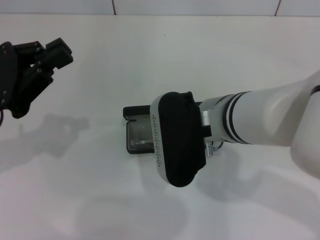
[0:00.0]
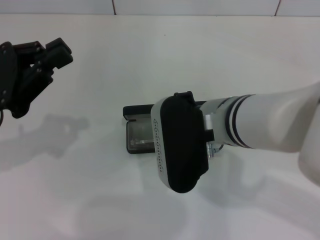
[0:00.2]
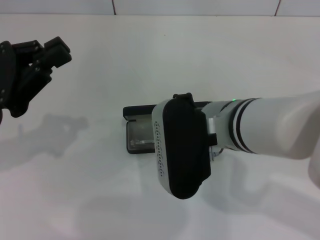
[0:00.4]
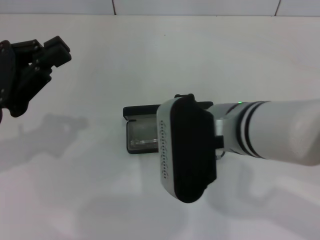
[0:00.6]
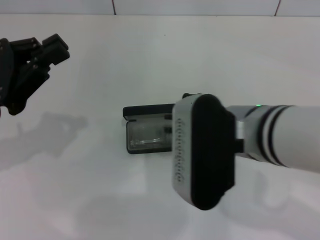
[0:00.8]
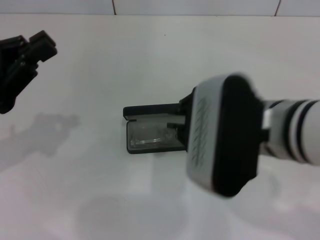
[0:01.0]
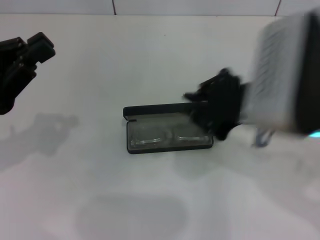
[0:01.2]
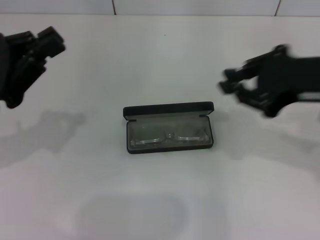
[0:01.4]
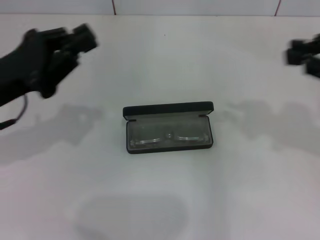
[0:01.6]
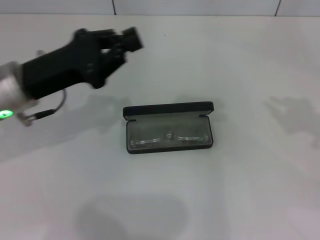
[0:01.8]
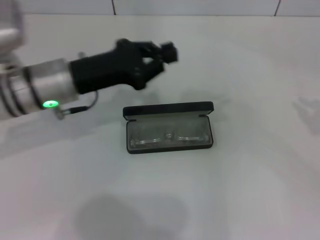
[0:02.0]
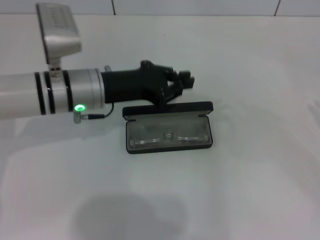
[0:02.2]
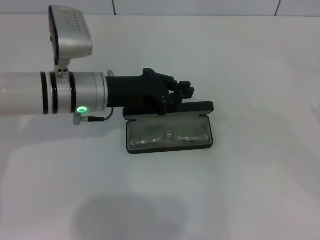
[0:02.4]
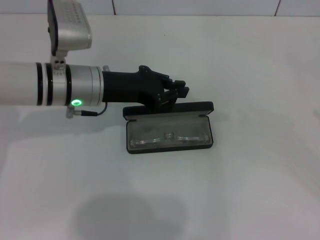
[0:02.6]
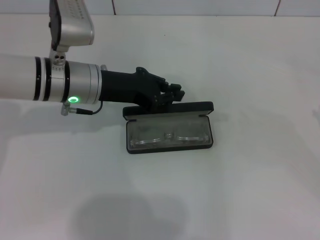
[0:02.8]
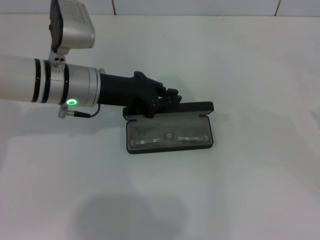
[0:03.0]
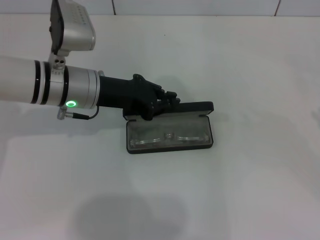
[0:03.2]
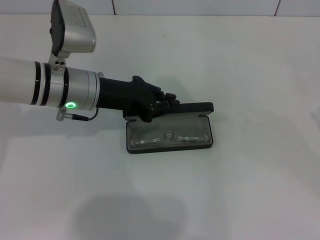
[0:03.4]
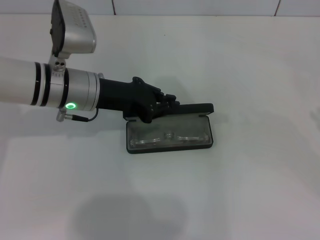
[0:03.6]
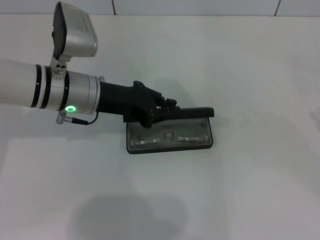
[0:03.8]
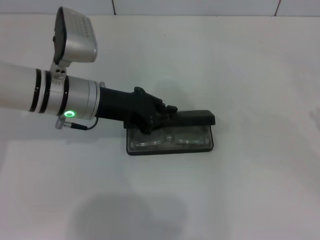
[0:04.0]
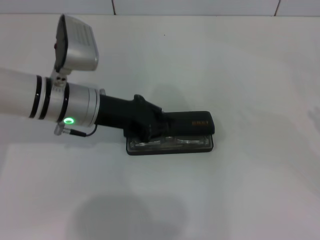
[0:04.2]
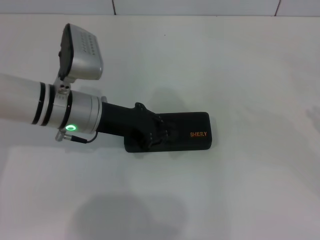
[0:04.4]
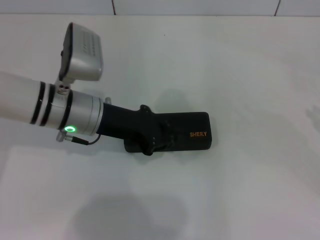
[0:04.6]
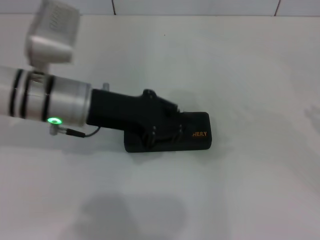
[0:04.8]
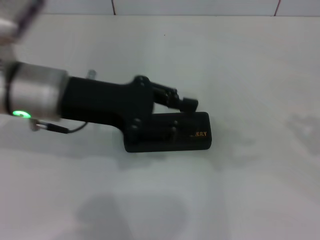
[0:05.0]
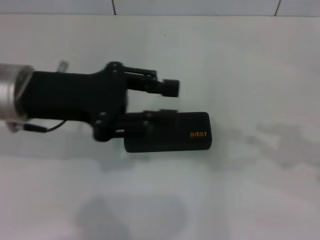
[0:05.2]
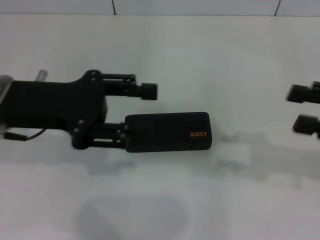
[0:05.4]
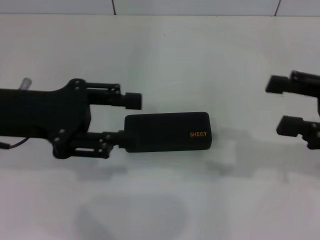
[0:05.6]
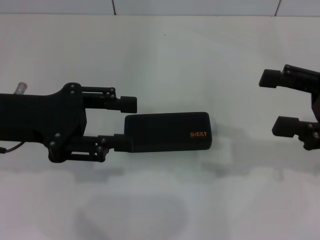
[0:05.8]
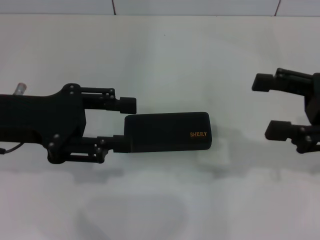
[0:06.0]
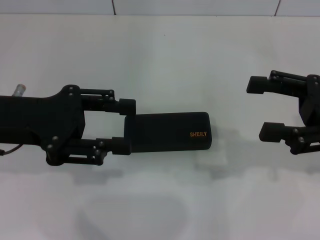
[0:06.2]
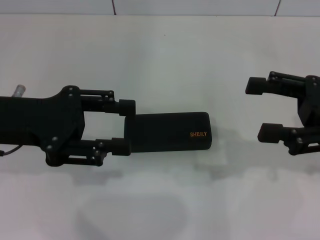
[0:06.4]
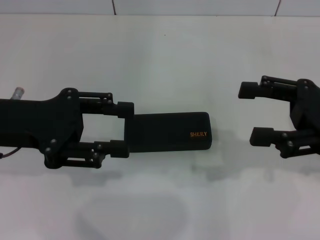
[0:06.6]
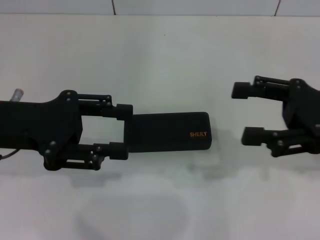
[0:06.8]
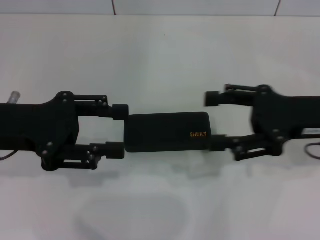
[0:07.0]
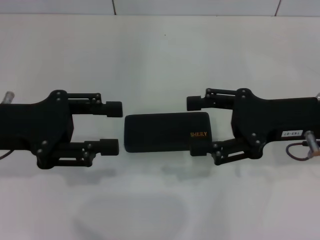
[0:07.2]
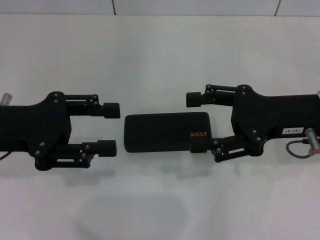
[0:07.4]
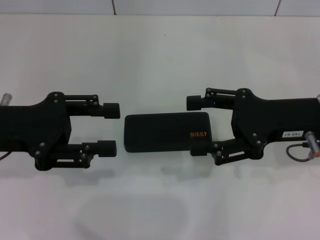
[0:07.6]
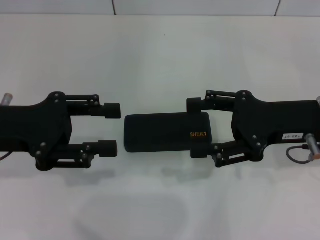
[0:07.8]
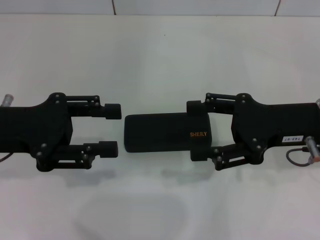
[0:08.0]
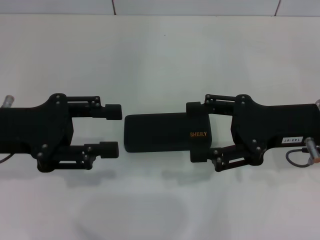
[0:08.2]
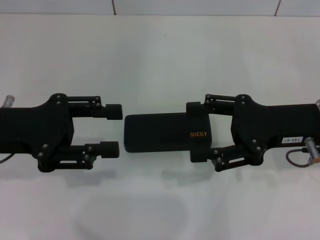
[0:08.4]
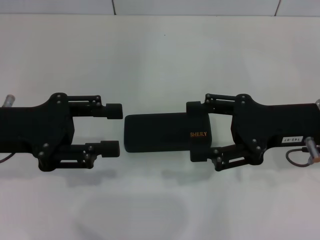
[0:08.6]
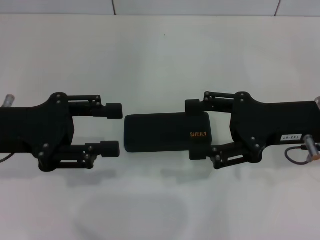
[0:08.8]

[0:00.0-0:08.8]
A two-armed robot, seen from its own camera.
Step, 0.6 to 4.6 s: Close the glasses case with your left hand.
0.0 to 1.4 s: The right gripper moves to the right and upward, approximately 20 cm.
1.4 to 3.0 s: The right gripper heads to the right, covering some 20 cm. The left gripper moves to the right and forward, about 15 cm.
3.0 to 4.4 s: There are only small adjustments of the grippers.
4.4 to 5.8 s: The right gripper shifts approximately 15 cm to the left, and opens its fingers. The left gripper heads to the left, upward and backward, covering approximately 15 cm, and opens its fingers.
5.8 to 7.4 s: The right gripper travels to the left by some 10 cm.
7.4 to 8.8 s: Both grippers stay about where they are.

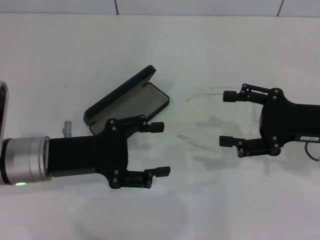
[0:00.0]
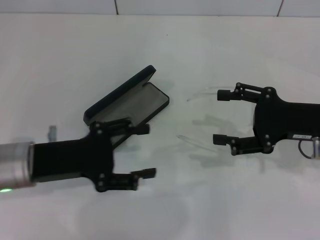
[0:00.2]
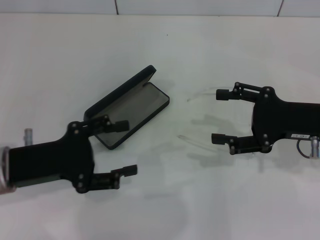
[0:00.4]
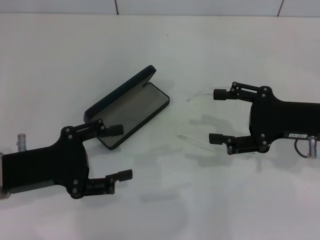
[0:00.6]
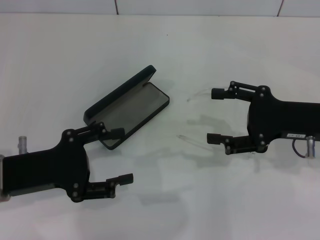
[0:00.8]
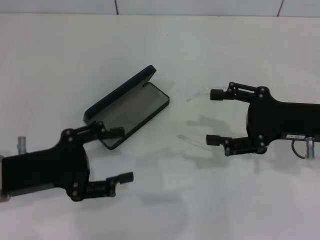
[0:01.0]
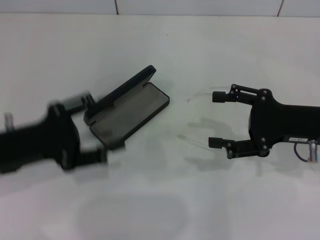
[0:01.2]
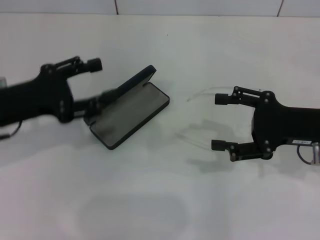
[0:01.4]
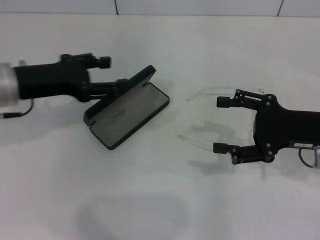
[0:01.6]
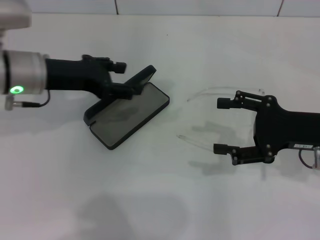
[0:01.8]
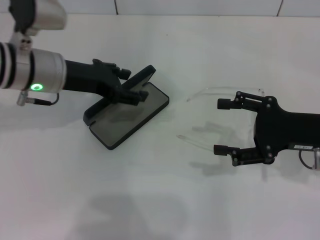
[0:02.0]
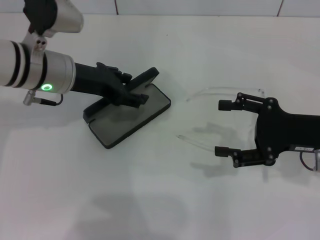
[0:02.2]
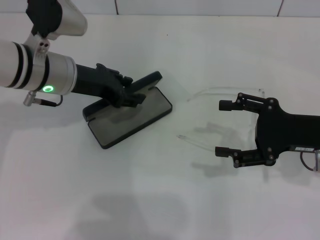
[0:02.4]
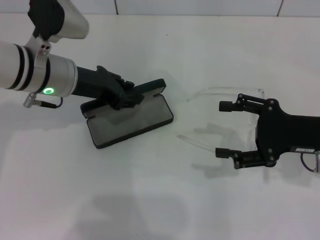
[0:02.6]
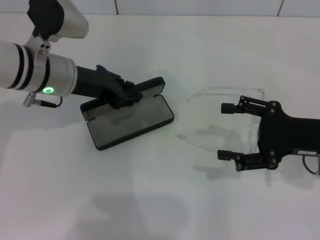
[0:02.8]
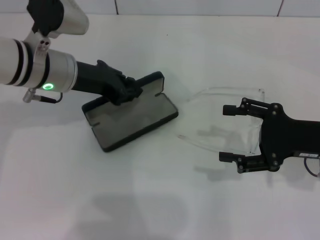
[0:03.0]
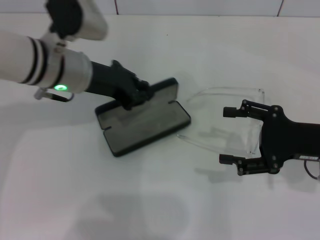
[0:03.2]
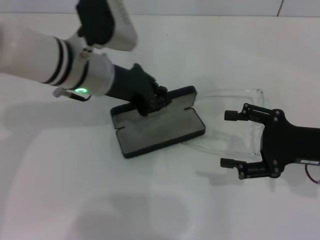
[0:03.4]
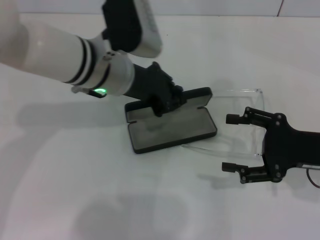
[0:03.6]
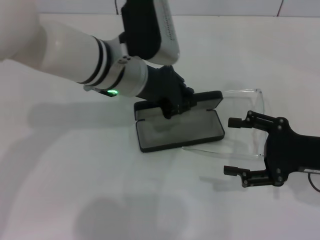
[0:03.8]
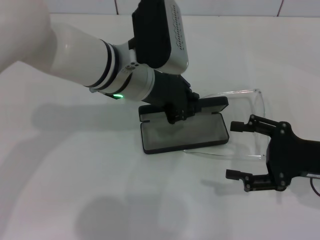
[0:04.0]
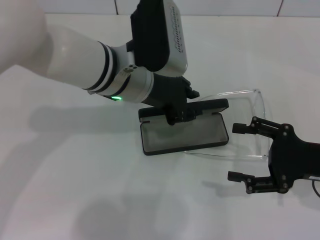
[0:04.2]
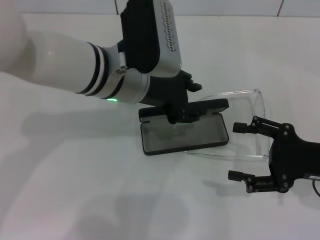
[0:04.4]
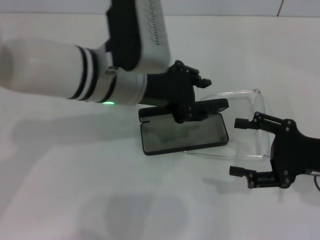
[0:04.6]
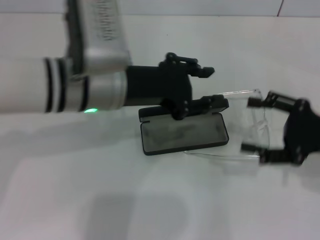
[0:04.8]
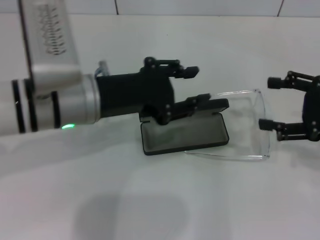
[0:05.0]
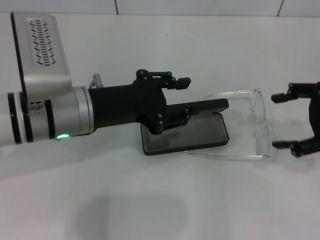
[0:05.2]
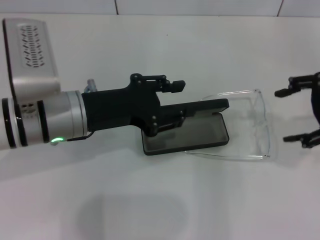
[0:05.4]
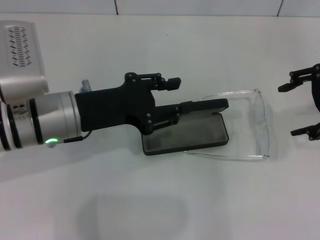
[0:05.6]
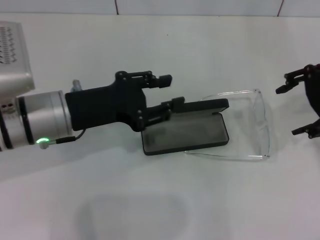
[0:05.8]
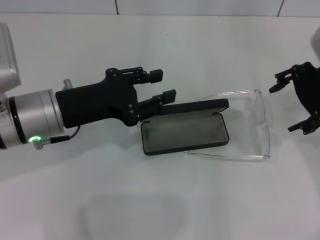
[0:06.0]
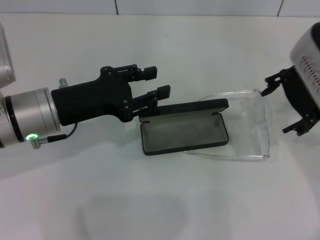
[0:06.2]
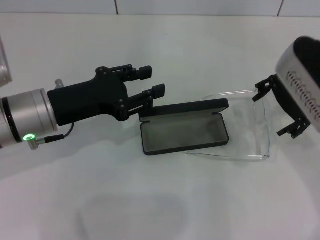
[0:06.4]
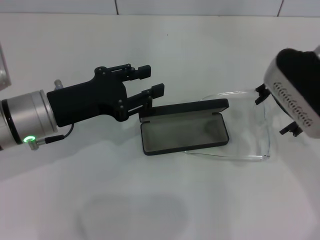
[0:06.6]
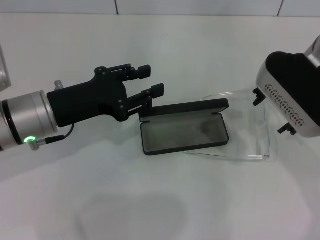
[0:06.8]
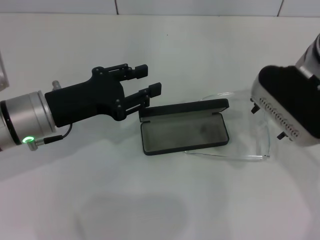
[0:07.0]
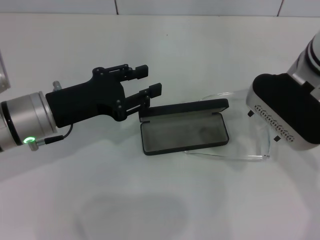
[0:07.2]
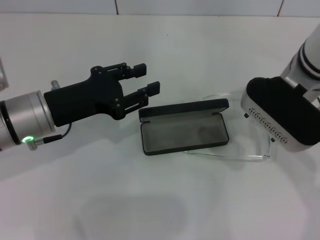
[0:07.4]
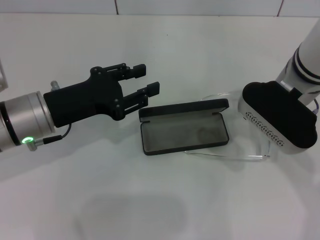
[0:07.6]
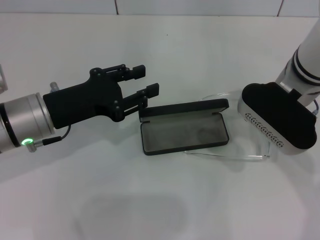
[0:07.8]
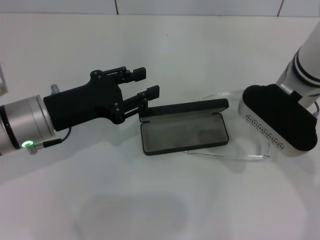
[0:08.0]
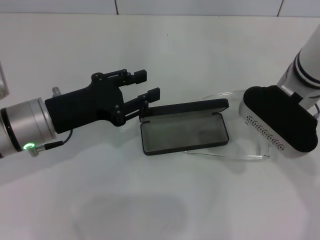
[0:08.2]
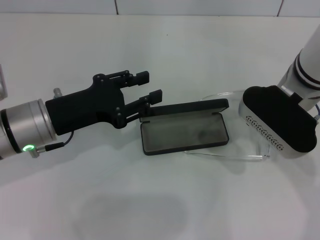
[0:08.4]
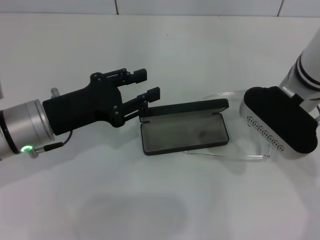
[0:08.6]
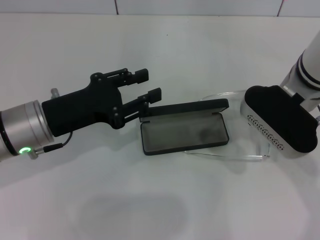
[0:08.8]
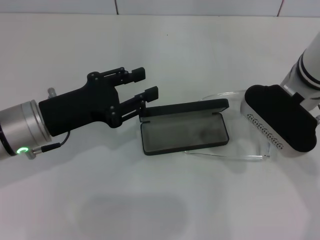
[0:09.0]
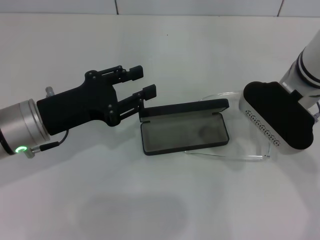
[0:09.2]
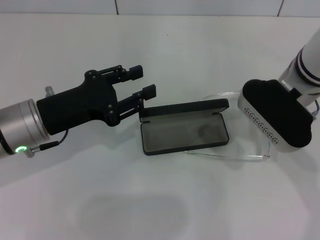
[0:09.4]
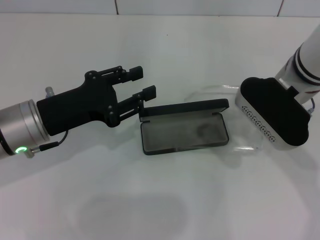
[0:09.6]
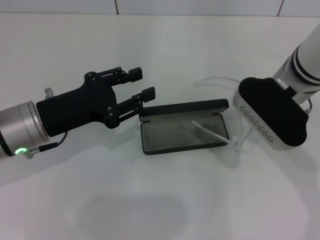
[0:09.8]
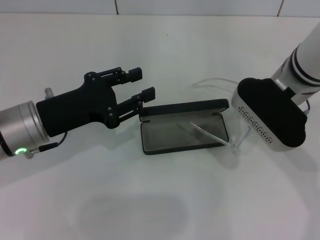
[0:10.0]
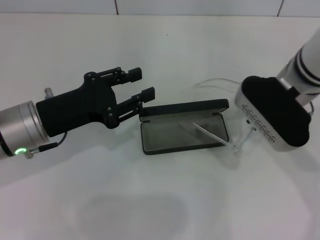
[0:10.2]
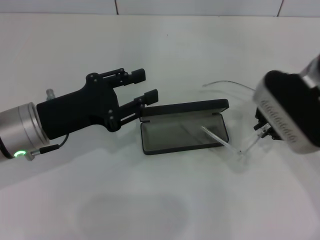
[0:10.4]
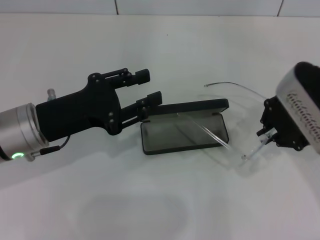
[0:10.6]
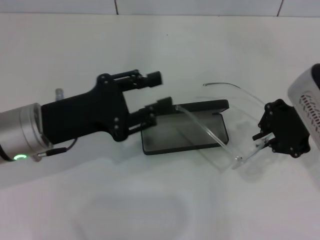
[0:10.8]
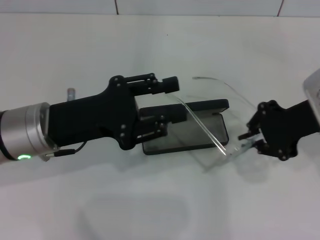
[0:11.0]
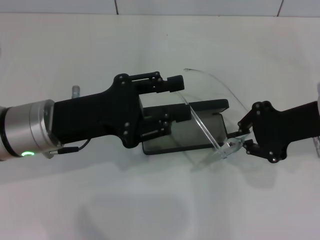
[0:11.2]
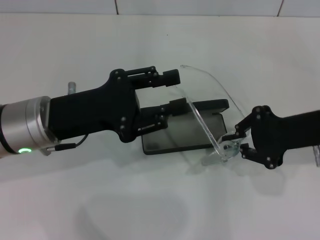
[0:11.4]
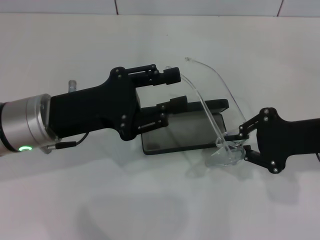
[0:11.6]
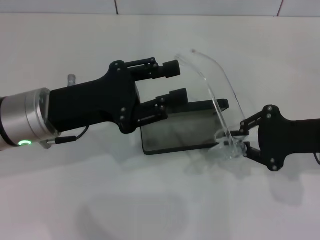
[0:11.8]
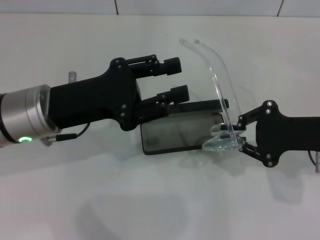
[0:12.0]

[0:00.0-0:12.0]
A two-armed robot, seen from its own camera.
Step, 0.0 to 2.8 s: Grab the glasses case with your left hand.
Step, 3.0 to 4.4 s: Place the glasses case in the center of the table with your left hand.
Step, 4.6 to 10.0 s: Grab the eyeglass frame with your right hand.
0.0 to 1.6 s: The left gripper heads forward and upward, covering roughly 10 cm.
1.6 to 3.0 s: The left gripper travels to the right by approximately 5 cm, and closes up.
3.0 to 4.4 s: The left gripper moves to the right, approximately 10 cm.
4.4 to 6.0 s: The right gripper travels upward and forward by approximately 15 cm. Meanwhile the left gripper travels to the left and backward by some 10 cm.
6.0 to 7.6 s: The right gripper travels to the left and downward by approximately 10 cm.
7.6 to 9.0 s: Both grippers stay about where they are.
9.0 to 10.4 s: The right gripper closes up.
10.4 to 12.0 s: The right gripper goes roughly 10 cm to the right and backward.

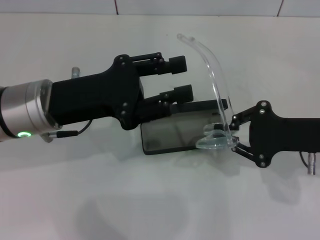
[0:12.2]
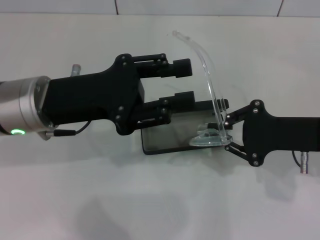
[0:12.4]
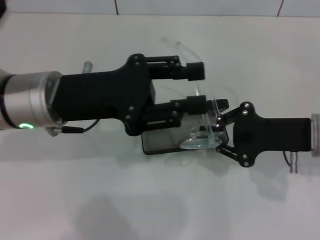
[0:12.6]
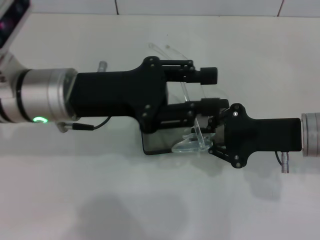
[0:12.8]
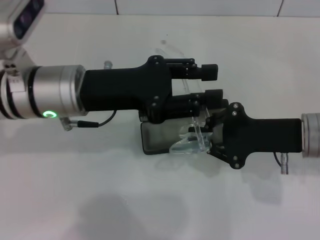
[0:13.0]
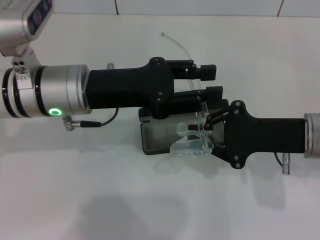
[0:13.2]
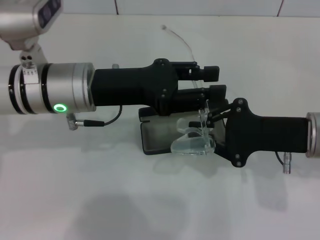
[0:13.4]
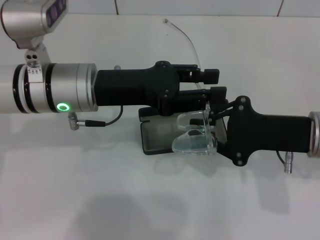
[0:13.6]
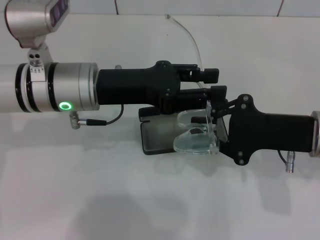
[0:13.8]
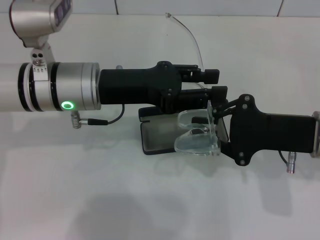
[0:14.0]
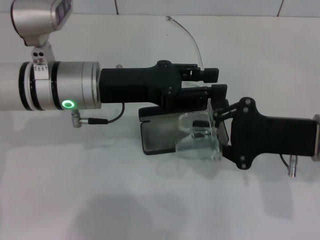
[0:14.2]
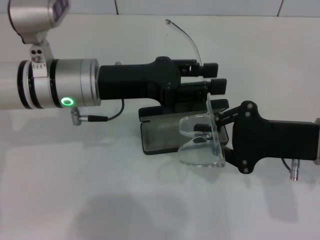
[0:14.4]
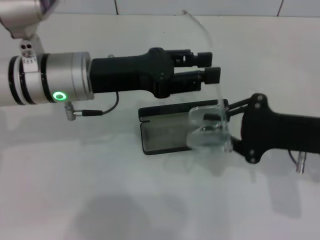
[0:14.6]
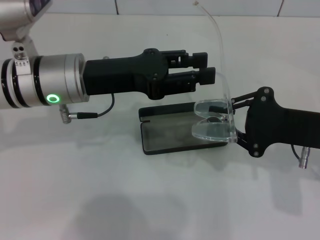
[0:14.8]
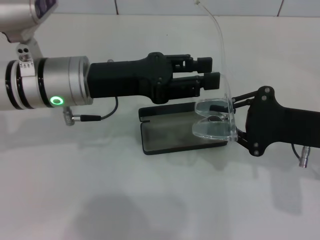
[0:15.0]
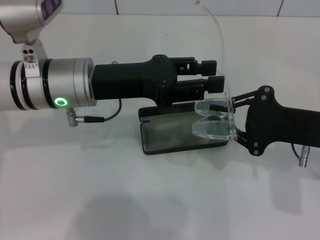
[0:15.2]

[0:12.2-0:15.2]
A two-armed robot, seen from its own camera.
12.2 to 13.8 s: The left gripper shifts by about 5 cm.
13.8 to 15.2 s: There are only small adjustments of the grippers.
